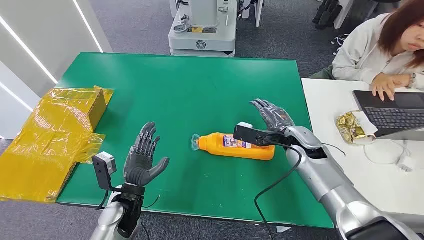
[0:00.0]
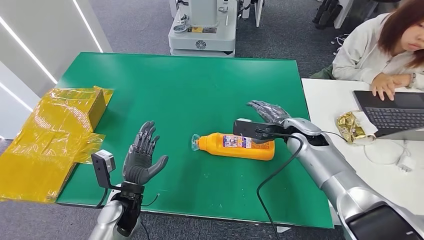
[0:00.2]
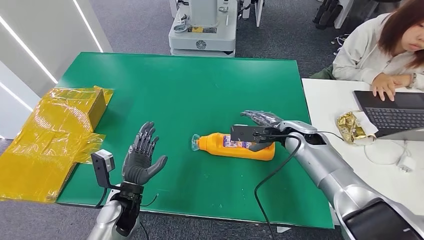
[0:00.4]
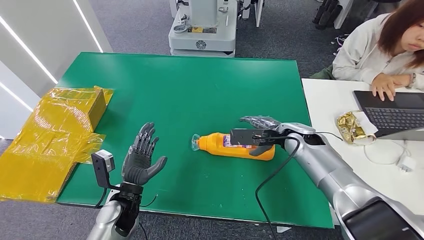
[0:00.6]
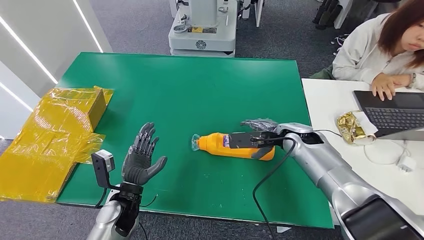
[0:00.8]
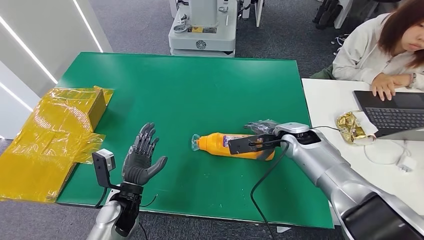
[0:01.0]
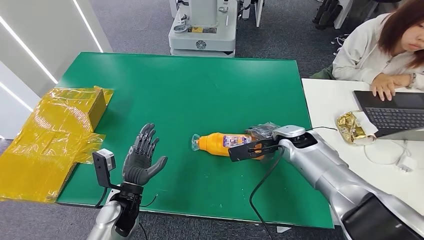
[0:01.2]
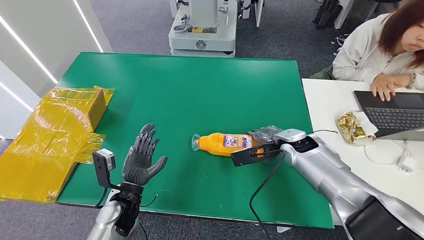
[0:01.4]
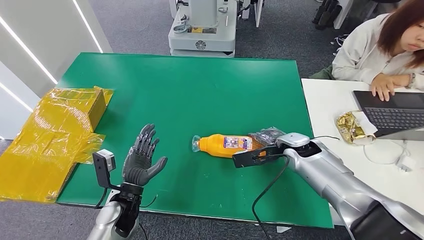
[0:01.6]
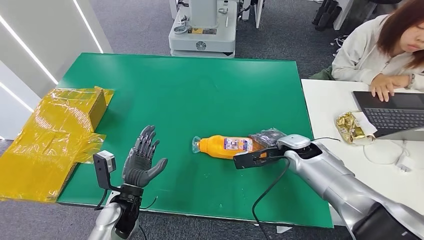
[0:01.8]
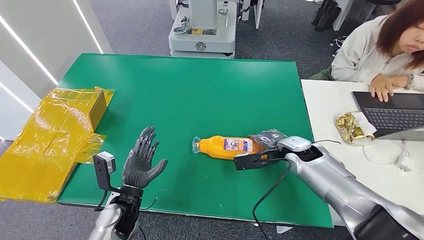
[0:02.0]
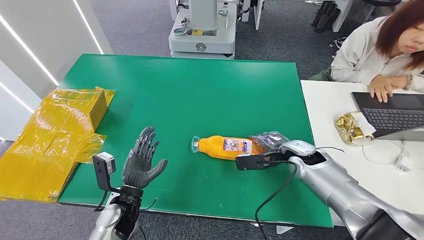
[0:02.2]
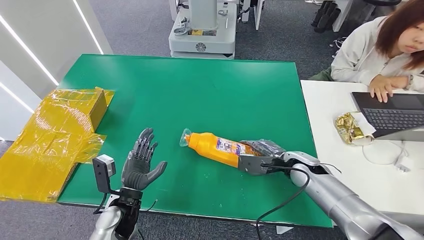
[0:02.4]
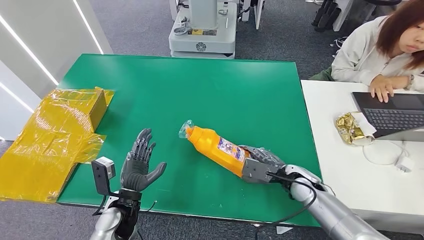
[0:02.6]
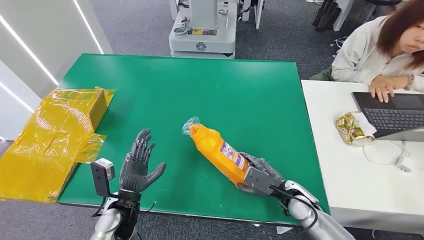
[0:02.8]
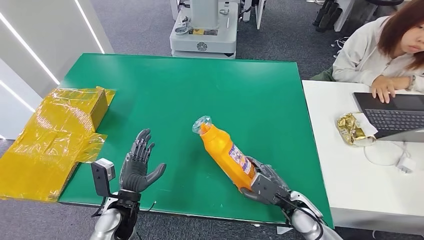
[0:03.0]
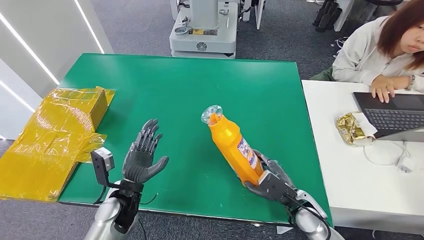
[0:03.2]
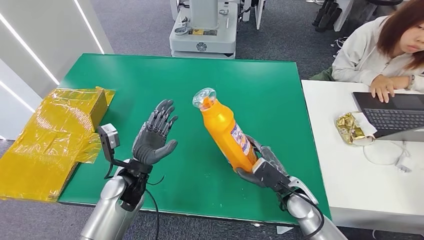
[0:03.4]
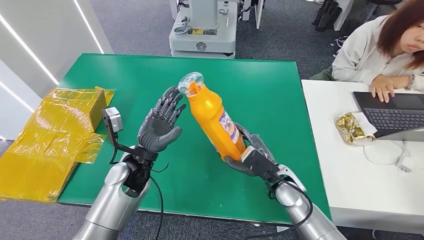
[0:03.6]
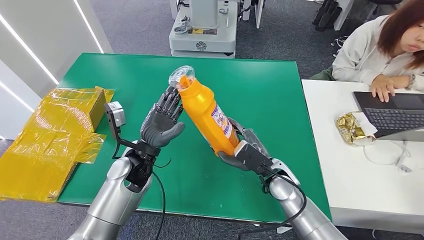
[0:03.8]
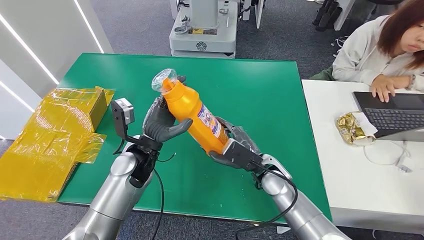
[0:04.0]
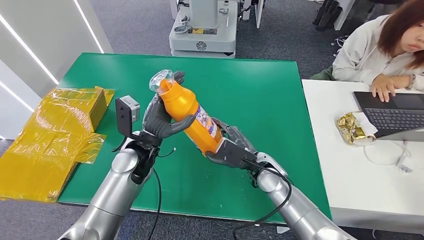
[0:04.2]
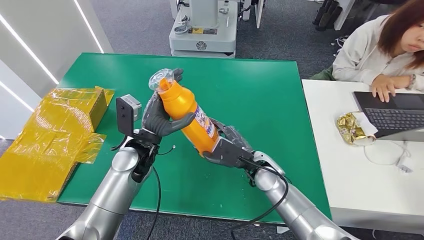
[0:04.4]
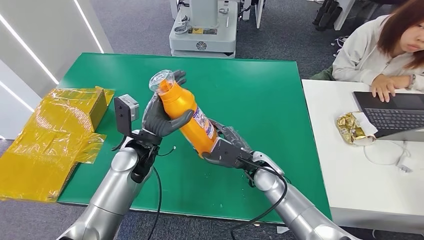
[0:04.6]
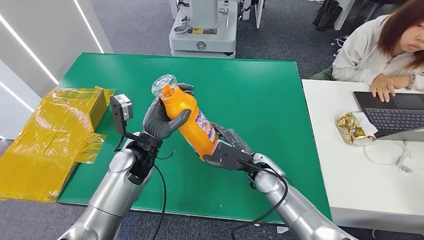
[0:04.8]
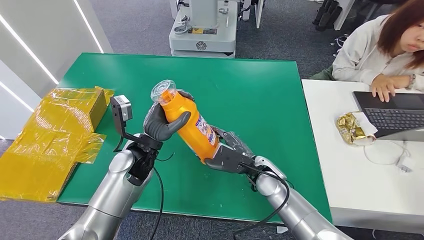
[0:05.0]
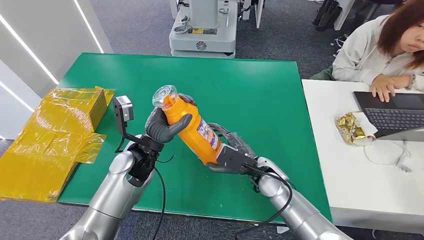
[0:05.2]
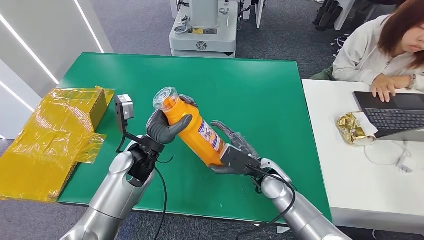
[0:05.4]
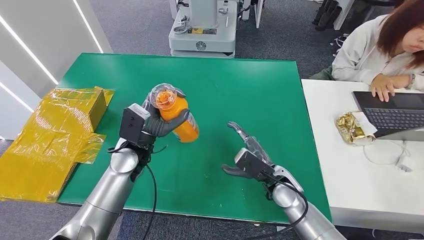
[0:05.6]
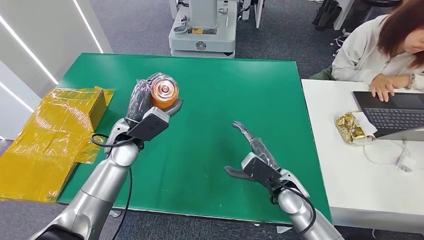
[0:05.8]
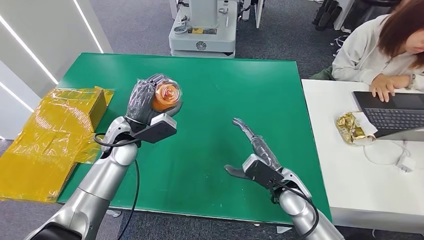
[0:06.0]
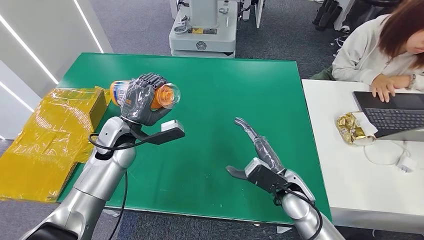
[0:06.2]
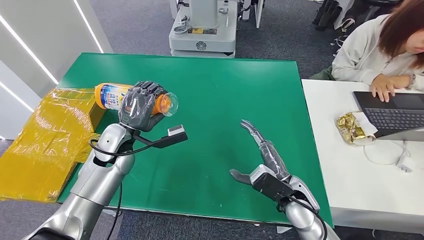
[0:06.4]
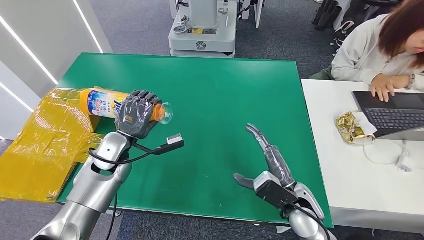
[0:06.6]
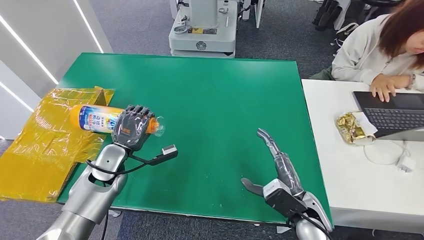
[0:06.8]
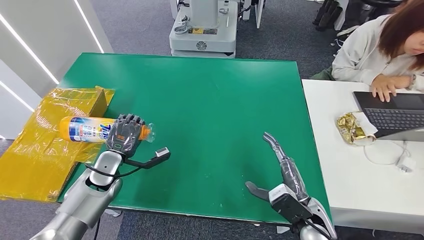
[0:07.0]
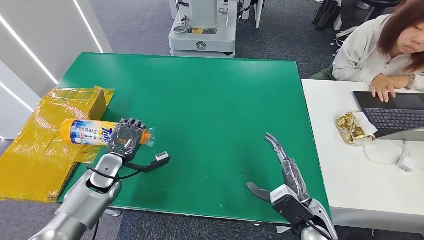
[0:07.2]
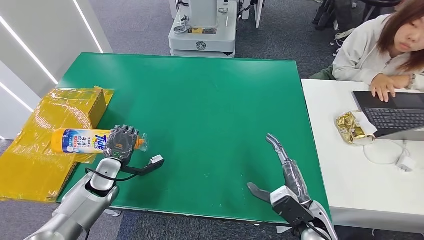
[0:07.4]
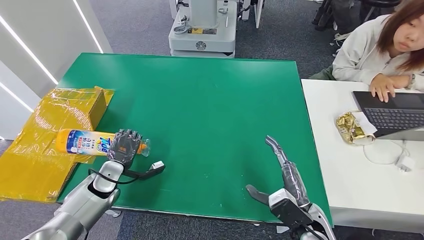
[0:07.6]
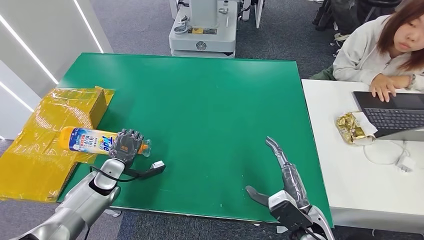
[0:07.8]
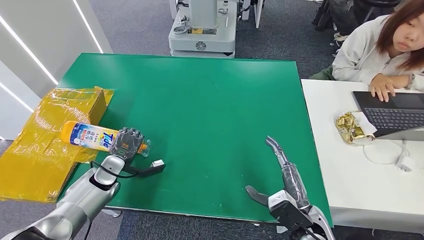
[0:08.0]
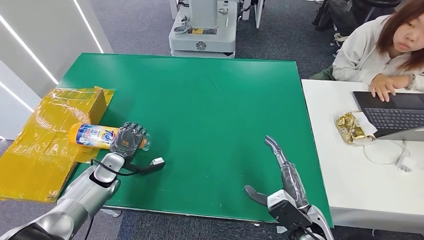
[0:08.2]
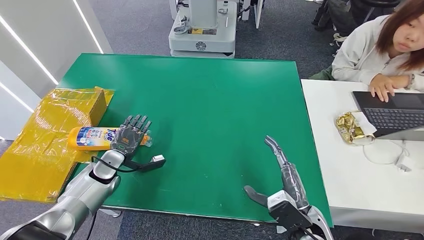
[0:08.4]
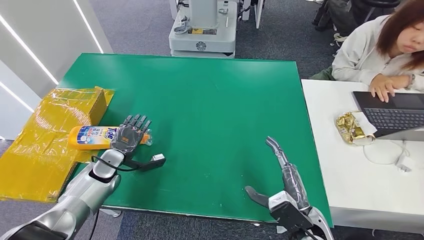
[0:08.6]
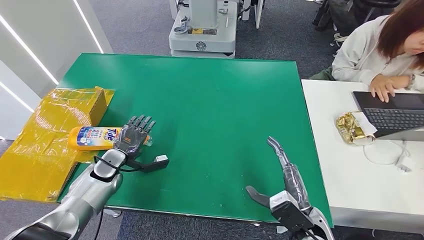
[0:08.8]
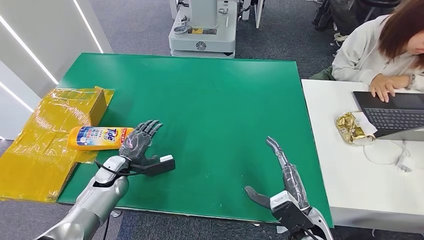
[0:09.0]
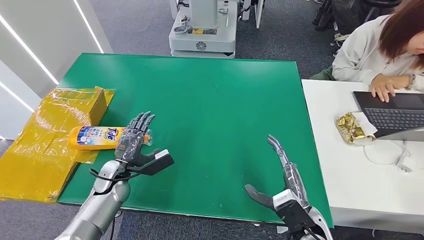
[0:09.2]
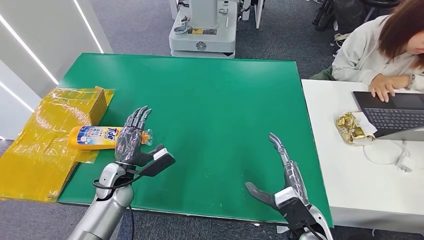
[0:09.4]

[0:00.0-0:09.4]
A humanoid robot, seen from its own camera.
Step, 0:00.0 to 0:04.0: Pick up the bottle from the table.
Step, 0:04.4 to 0:09.4: Turn the bottle to the front side.
0:01.6 to 0:03.2: The right hand goes approximately 20 cm backward and downward.
0:03.2 to 0:04.8: The left hand is displaced upward and forward by some 15 cm, while the right hand heads to the left, forward and upward, covering about 15 cm.
0:04.8 to 0:06.2: The left hand moves to the left, roughly 5 cm, while the right hand is displaced to the right by about 5 cm.
0:06.2 to 0:07.8: The left hand is displaced downward and to the left by approximately 20 cm, while the right hand travels backward by approximately 10 cm.
0:07.8 to 0:09.4: The left hand moves to the right, some 5 cm.
